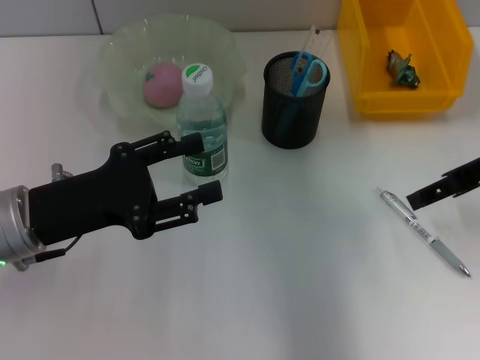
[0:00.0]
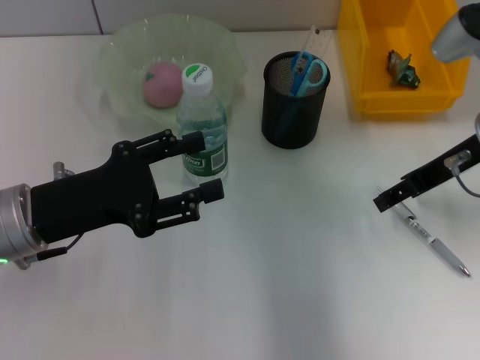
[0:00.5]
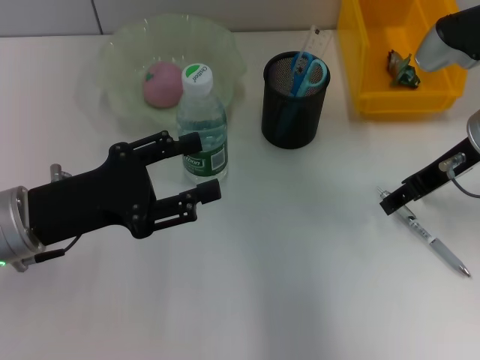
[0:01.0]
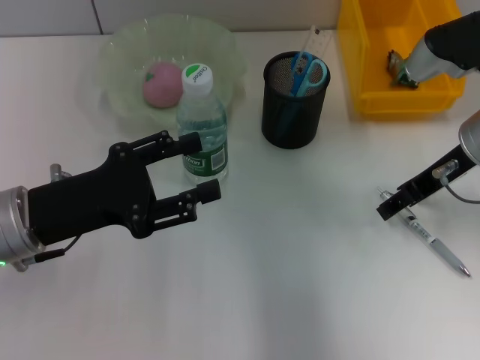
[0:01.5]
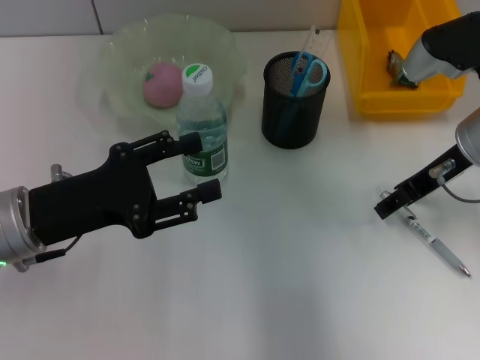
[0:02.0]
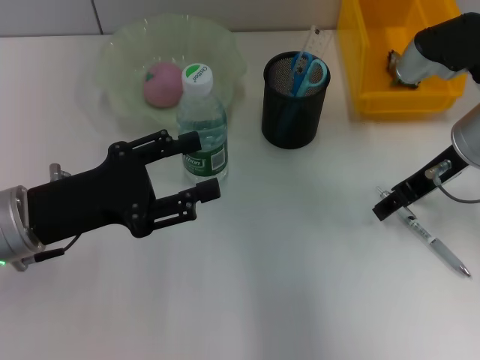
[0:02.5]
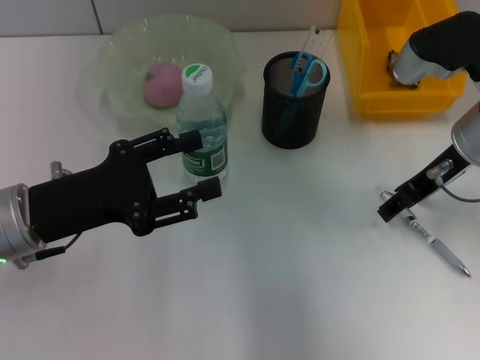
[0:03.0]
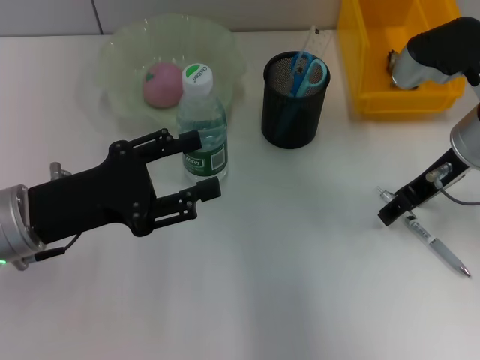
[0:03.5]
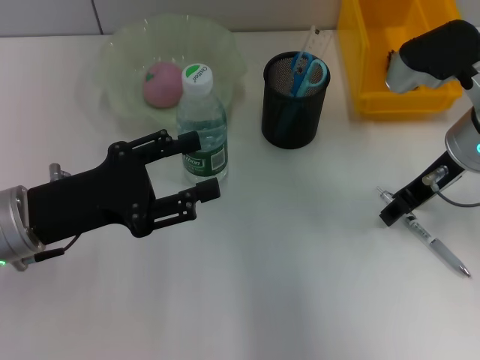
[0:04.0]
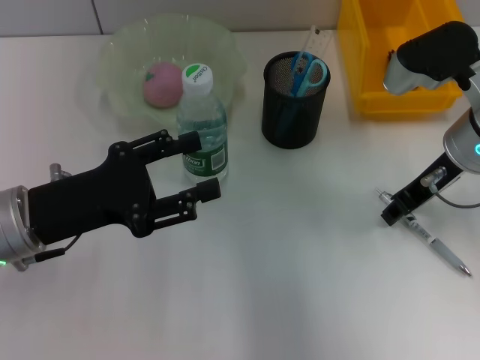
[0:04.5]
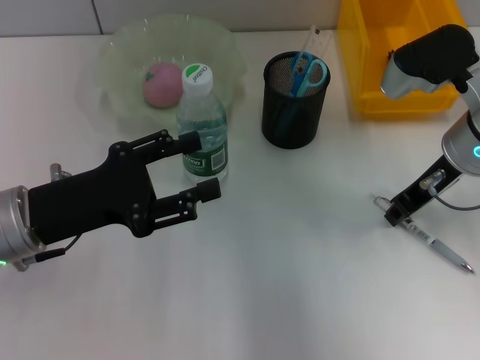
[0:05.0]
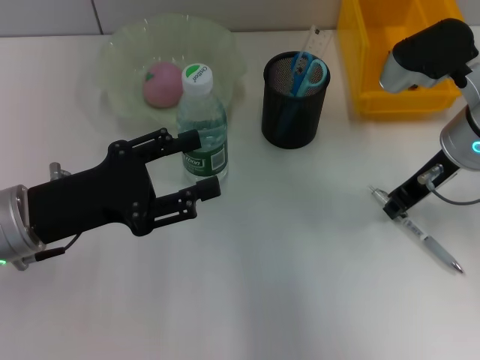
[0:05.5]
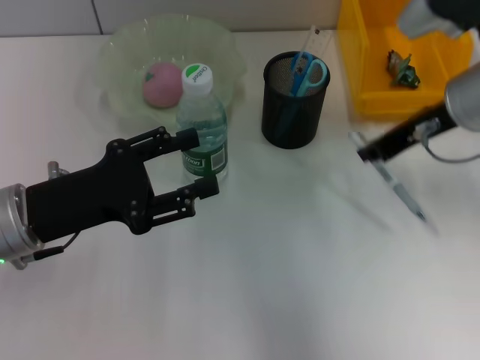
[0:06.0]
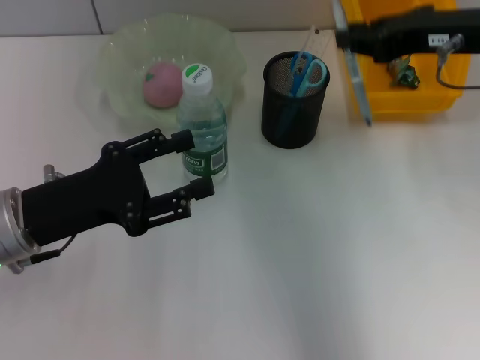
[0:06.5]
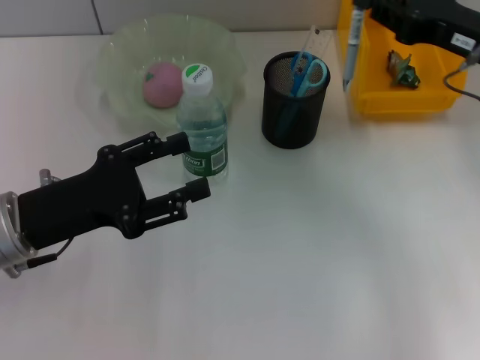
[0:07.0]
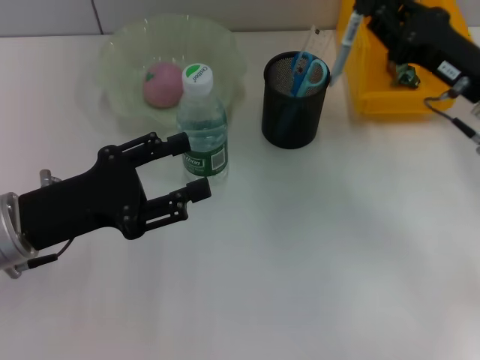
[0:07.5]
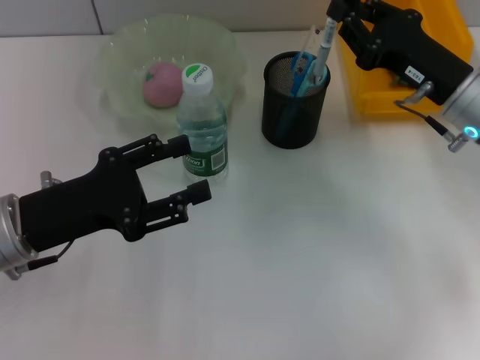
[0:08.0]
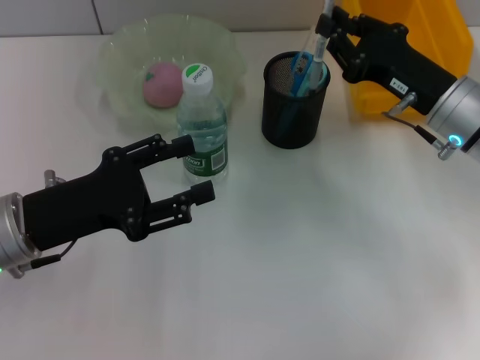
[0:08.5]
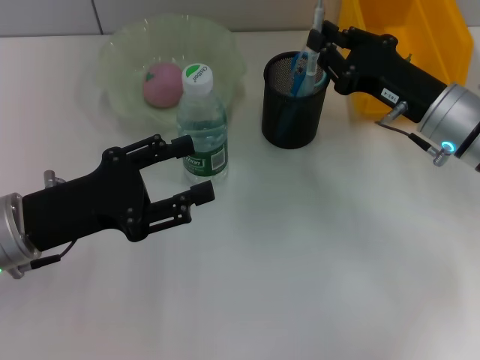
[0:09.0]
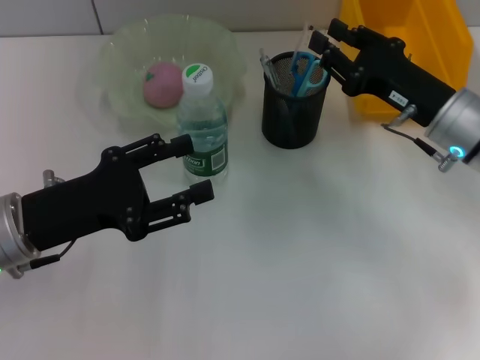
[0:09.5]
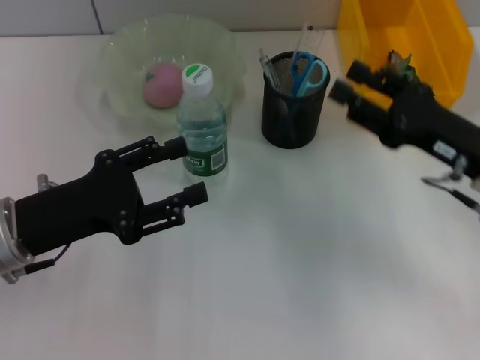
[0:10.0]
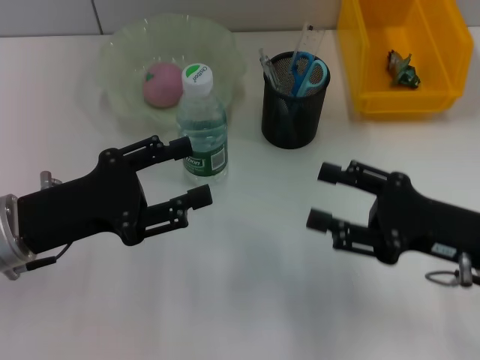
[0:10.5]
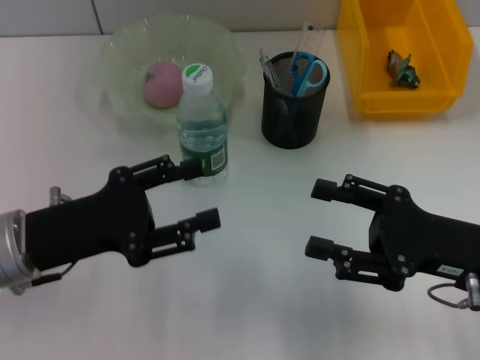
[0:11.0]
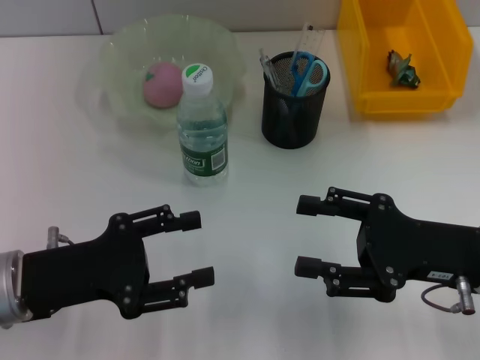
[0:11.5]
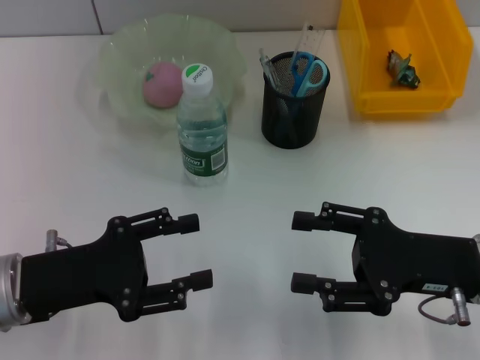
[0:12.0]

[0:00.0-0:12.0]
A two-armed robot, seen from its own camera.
Step, 0:00.0 to 0:05.0: Grab the gray spring-action pen with the right hand.
Step, 0:05.5 to 0:09.0: Place the gray spring-action pen into the pen holder with the right hand.
0:00.0 to 0:02.0: The right gripper shifts by about 5 cm.
0:02.0 to 0:04.0: The grippers stay close to where they were, moving slightly.
0:04.0 to 0:06.0: The right gripper closes its fingers.
0:06.0 to 0:08.0: The right gripper is displaced downward by roughly 10 cm.
0:08.0 to 0:10.0: The right gripper heads backward, covering some 5 cm.
0:10.0 to 0:12.0: The right gripper goes about 5 cm backward, and opens its fingers.

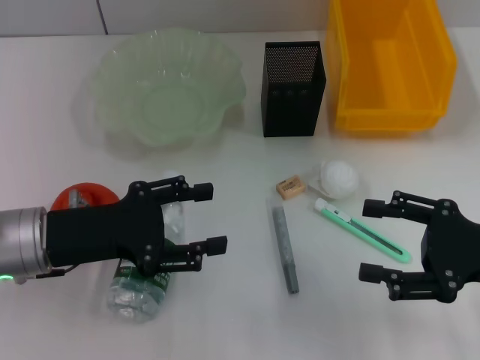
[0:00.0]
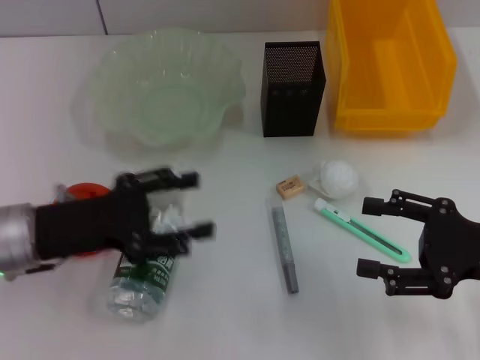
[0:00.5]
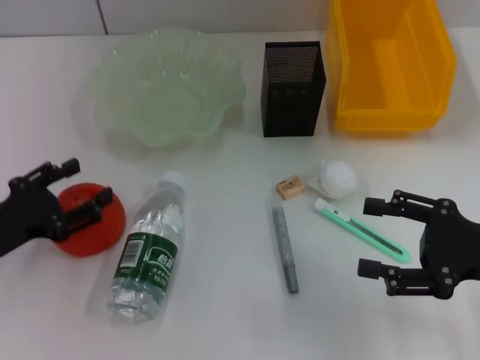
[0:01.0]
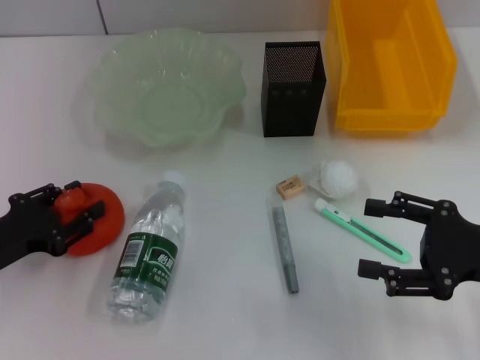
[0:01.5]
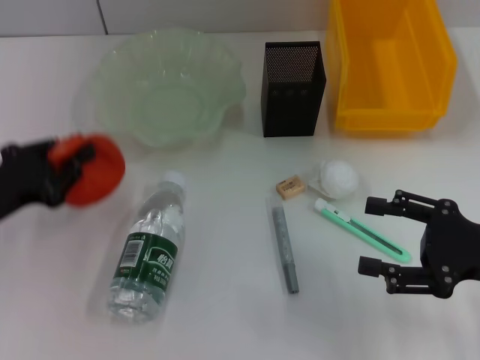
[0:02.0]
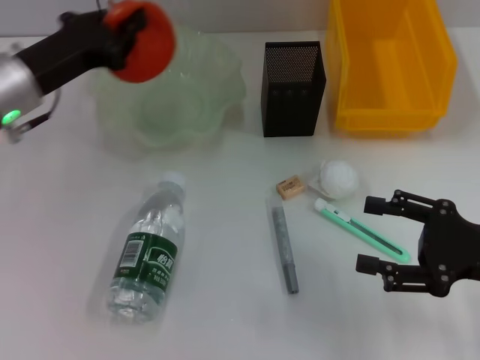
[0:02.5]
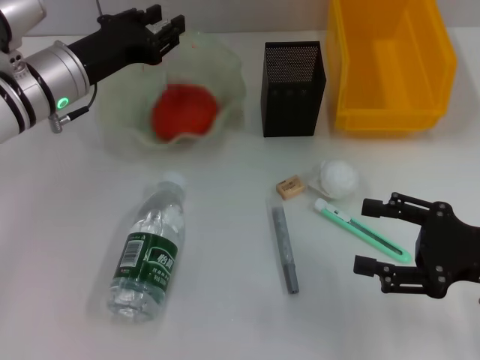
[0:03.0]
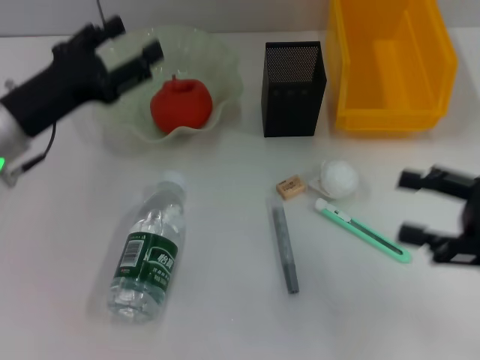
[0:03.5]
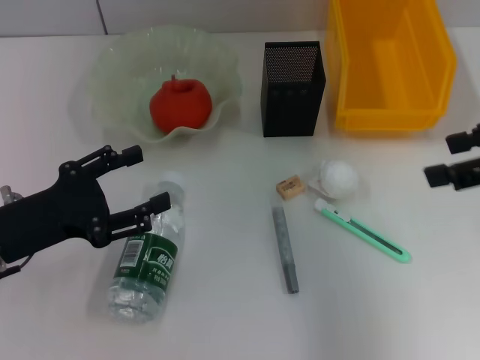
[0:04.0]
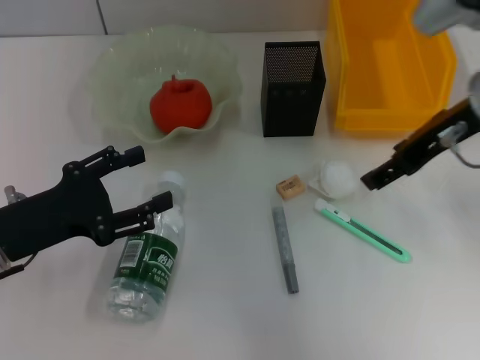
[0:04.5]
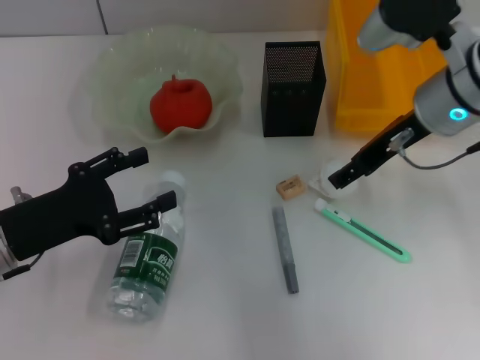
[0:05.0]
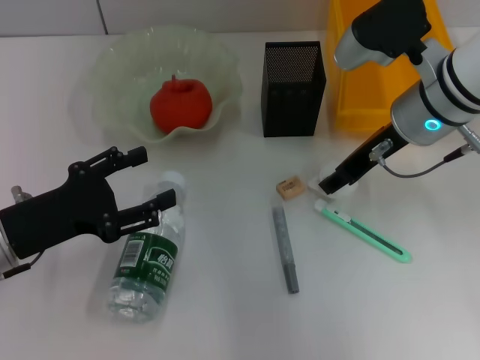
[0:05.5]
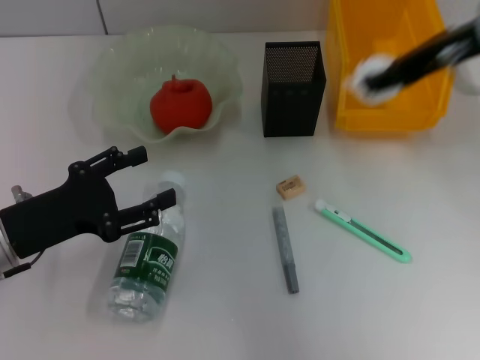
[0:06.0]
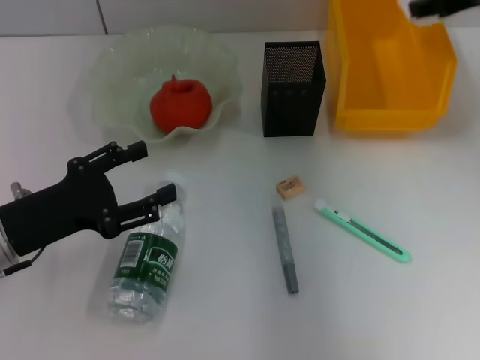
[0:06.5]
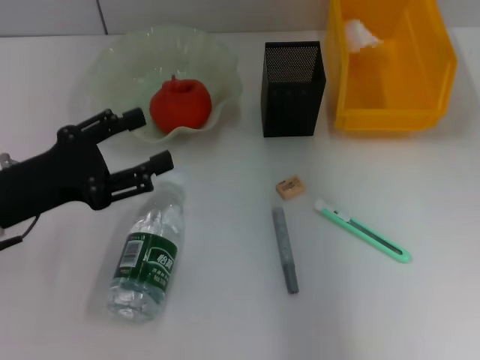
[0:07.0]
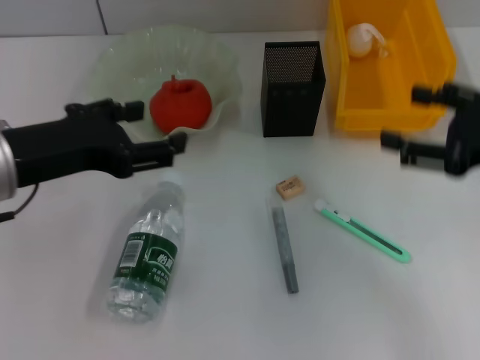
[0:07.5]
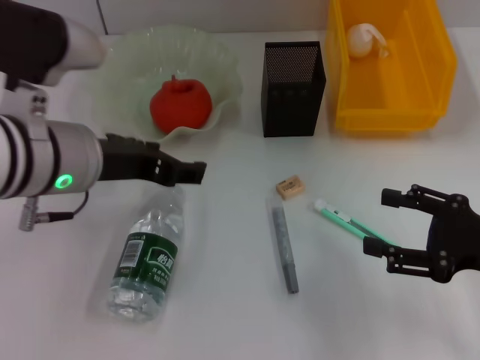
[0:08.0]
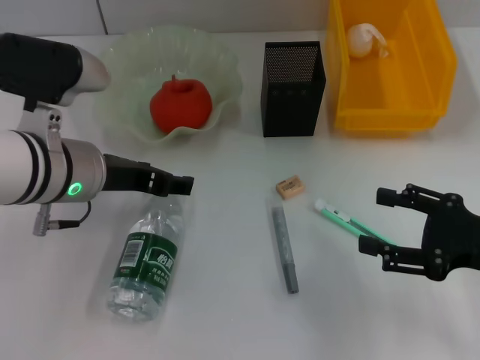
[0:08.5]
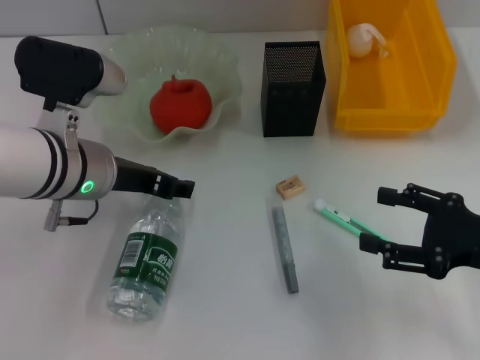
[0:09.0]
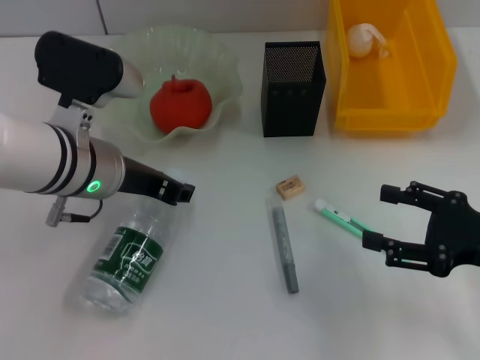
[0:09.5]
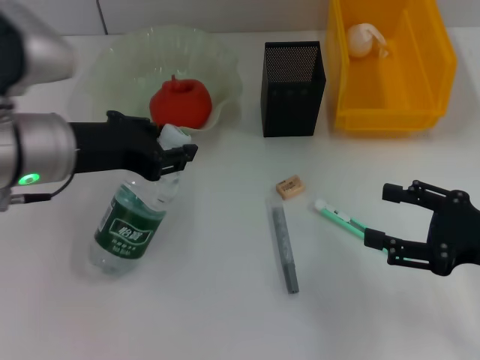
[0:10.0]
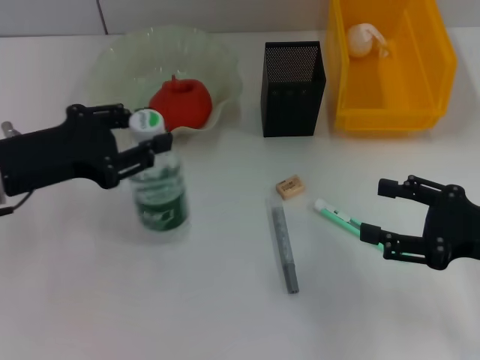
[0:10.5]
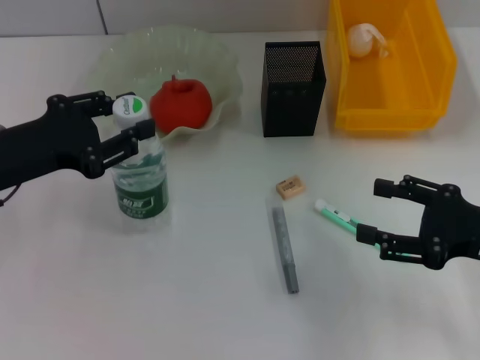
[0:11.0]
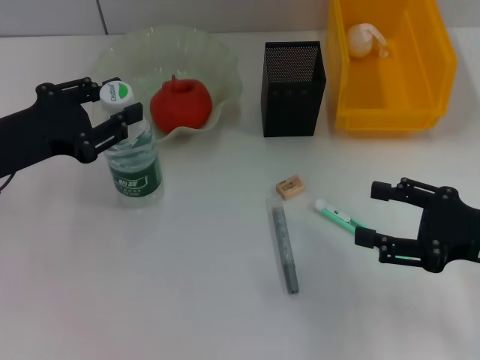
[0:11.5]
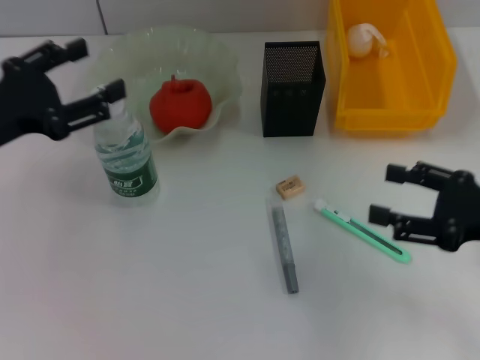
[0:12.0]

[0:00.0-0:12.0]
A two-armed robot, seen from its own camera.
Step, 0:00.0 to 0:01.5: Grab the orange with the left hand.
Step, 0:02.0 to 0:03.0: Place the orange into the fruit bowl with the left hand.
Step, 0:03.5 to 0:05.5: Grab the paper ball with the right hand.
Step, 0:06.0 to 0:06.5: Place the paper ball into the trash can with the right hand.
Step, 0:07.5 to 0:09.0: Grab the water bottle with the left hand.
Step, 0:09.5 to 0:11.5: Place the water bottle on the table with the left hand.
0:00.0 to 0:02.0: The left gripper is displaced to the left by approximately 10 cm, and closes up.
0:02.0 to 0:04.0: The left gripper reaches some 15 cm forward, then returns, and opens its fingers; the right gripper heads upward, covering approximately 15 cm.
0:04.0 to 0:06.0: The right gripper travels to the left and forward by about 15 cm, and closes.
0:06.0 to 0:08.0: The right gripper is displaced downward, backward and to the right by approximately 25 cm, and opens its fingers. Meanwhile the left gripper moves upward and to the right, some 15 cm.
0:08.0 to 0:10.0: The left gripper closes its fingers.
0:10.0 to 0:12.0: The left gripper shifts some 10 cm to the left, and opens.

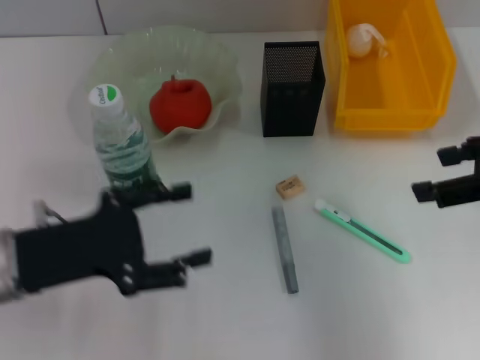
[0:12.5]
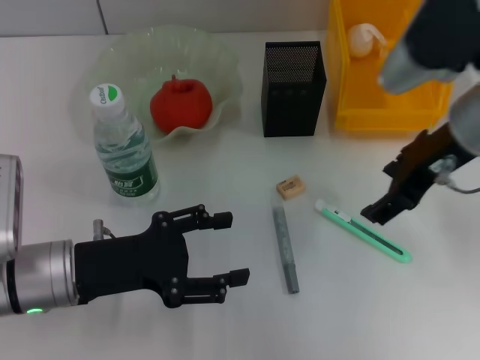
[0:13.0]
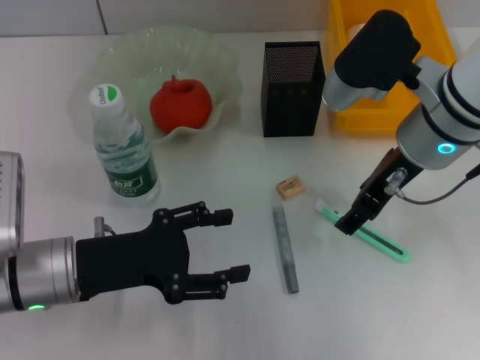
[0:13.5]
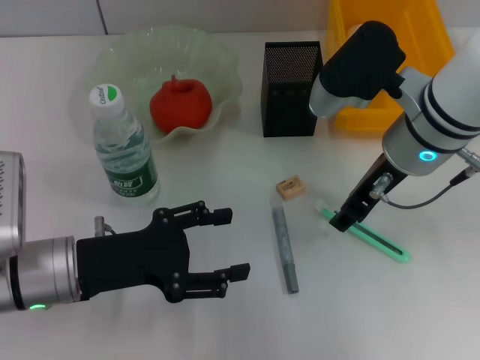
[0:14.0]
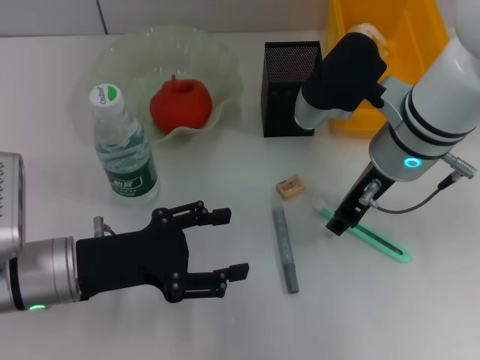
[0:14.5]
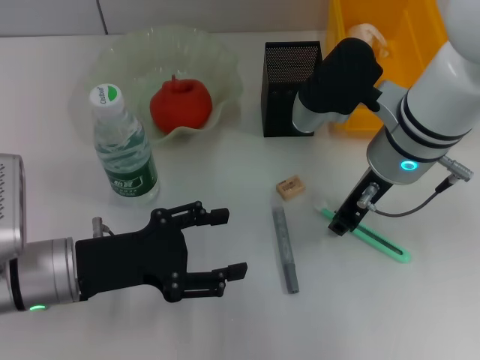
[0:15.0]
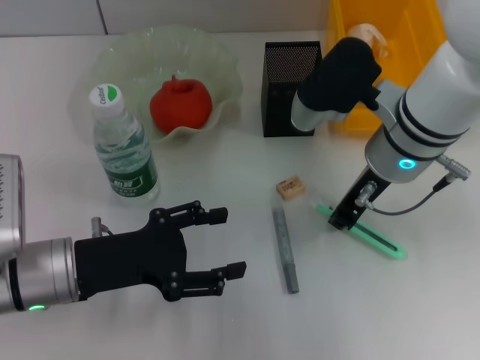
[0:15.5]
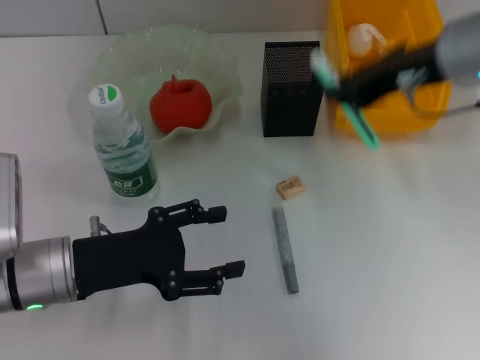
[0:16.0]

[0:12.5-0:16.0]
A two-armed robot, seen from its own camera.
Step, 0:12.5 to 0:15.0: Grab the blue utility knife with the right hand.
0:12.5 to 0:14.5: The left gripper shifts by approximately 5 cm. The right gripper moves to the left, downward and forward, some 20 cm, and closes.
0:14.5 to 0:16.0: The right gripper is displaced upward and to the right by some 10 cm, and closes.
